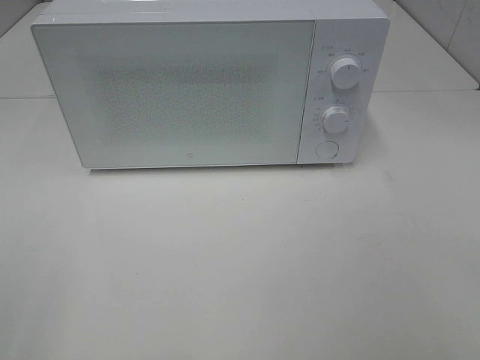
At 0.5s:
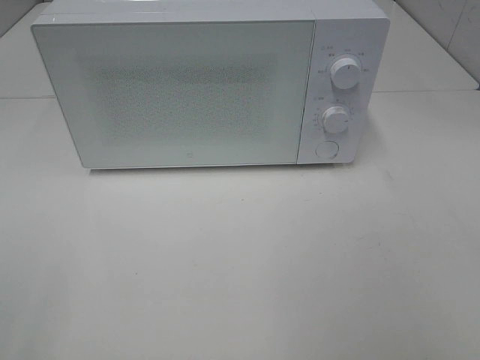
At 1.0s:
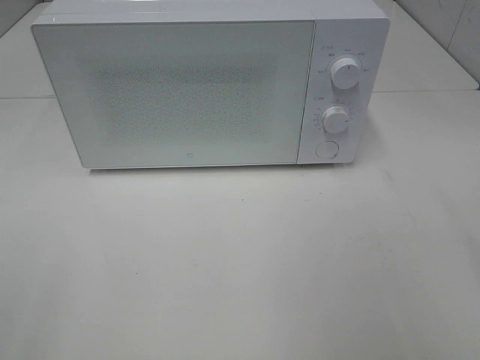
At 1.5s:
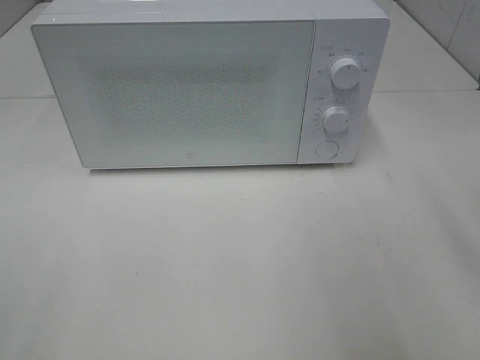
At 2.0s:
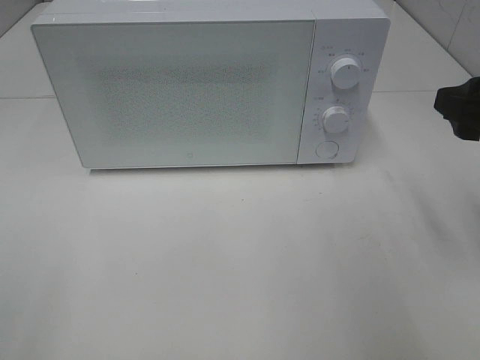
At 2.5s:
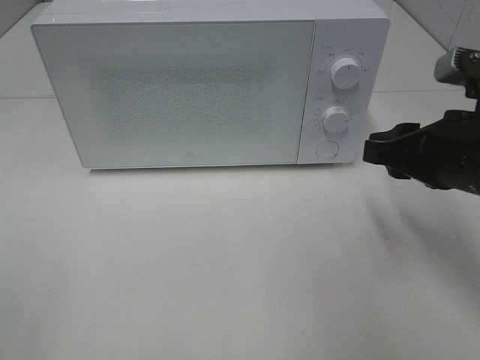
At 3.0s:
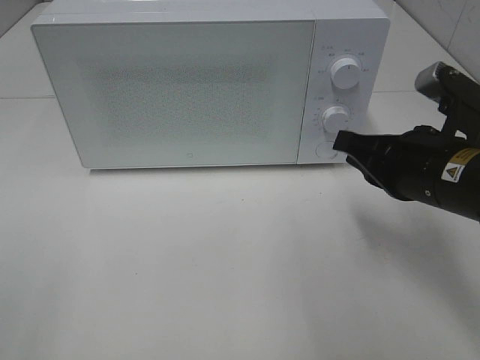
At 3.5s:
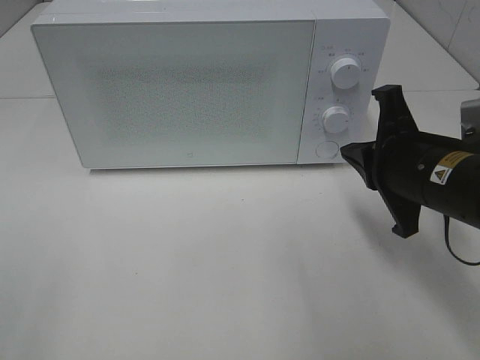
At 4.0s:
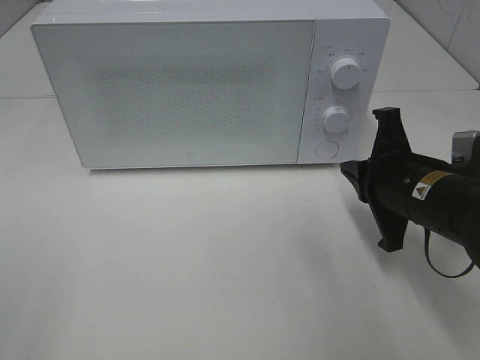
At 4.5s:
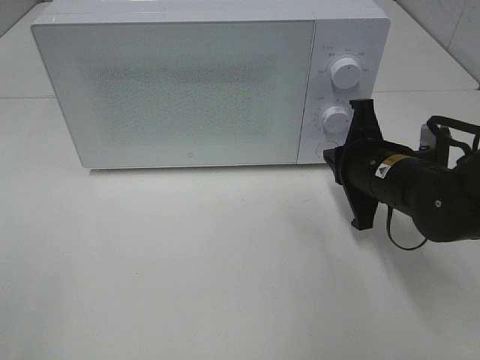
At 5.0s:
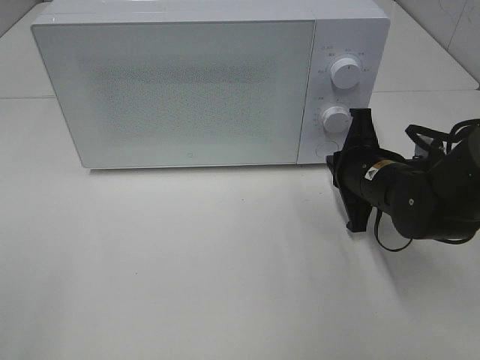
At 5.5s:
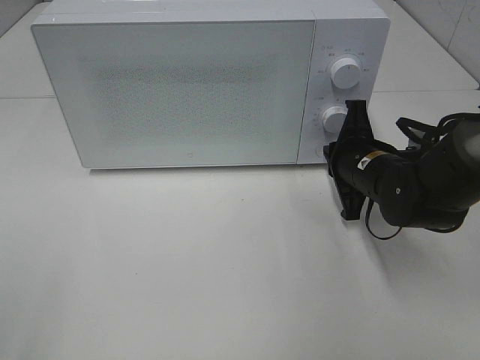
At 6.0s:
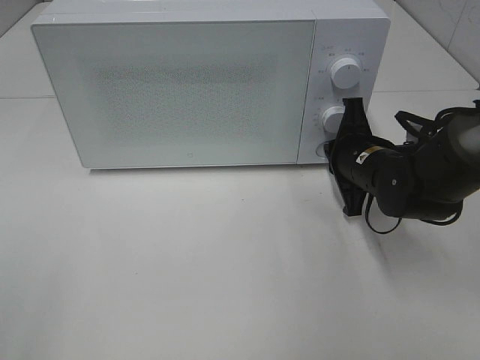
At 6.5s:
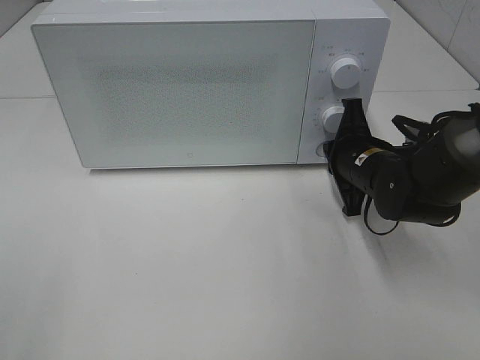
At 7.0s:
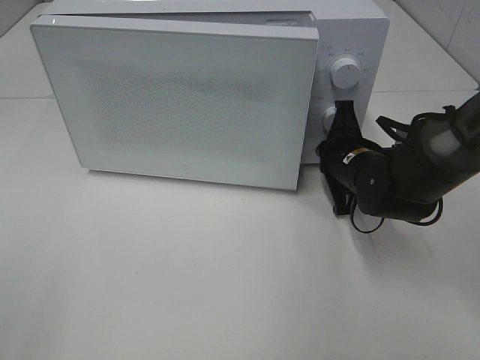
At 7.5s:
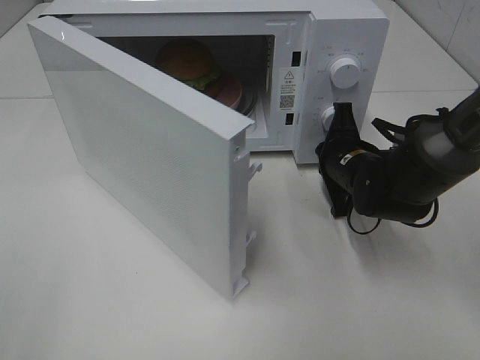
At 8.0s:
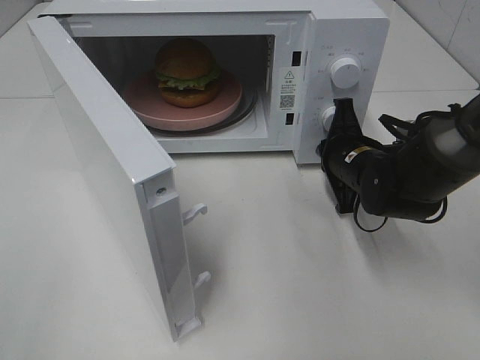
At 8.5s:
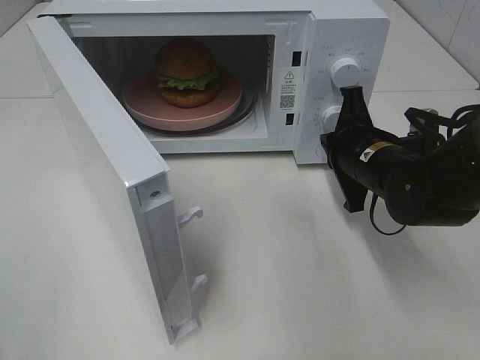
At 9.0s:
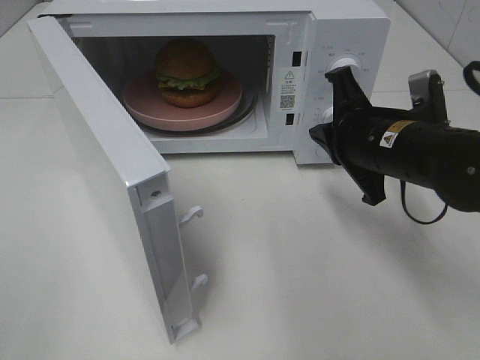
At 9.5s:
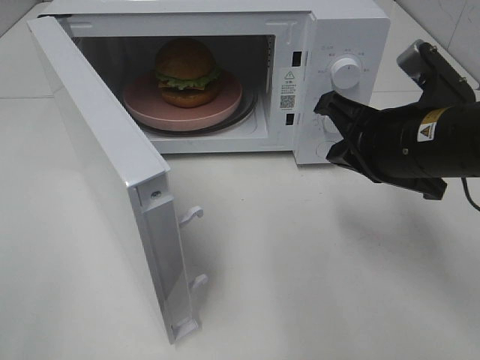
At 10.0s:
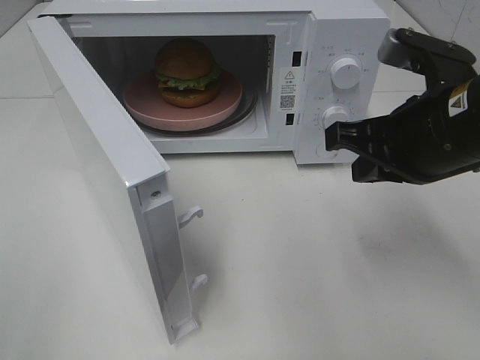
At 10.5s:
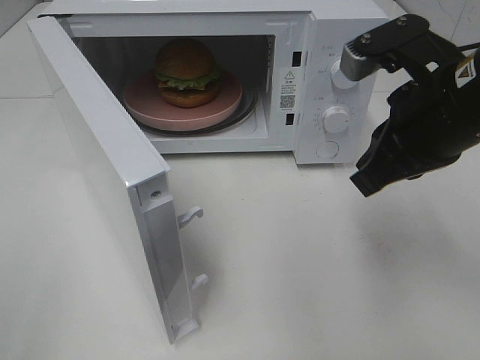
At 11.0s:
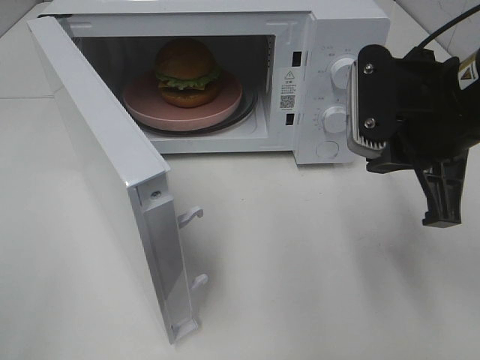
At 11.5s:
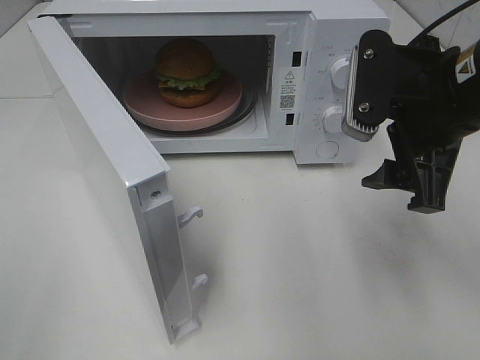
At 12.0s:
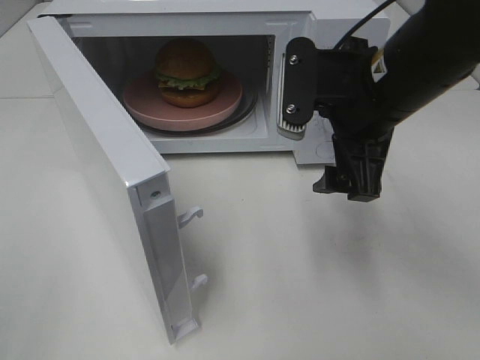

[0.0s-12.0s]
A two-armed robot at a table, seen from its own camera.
Task of the whole recording: Heat the burger.
Step, 0.0s to 8.0s: Right hand: press the switch.
0.0s to 2.0s: The right gripper travels forward by roughly 20 cm.
2.0s to 4.0s: The right gripper is displaced downward and to the left by some 15 cm, and closes up.
4.0s to 6.0s: The right gripper shifts some 10 cm forward.
8.0s to 10.0s: The right gripper moves upward and backward, roughly 20 cm.
10.0s to 12.0s: The right gripper moves to the left, some 5 cm, and opens its fingers.

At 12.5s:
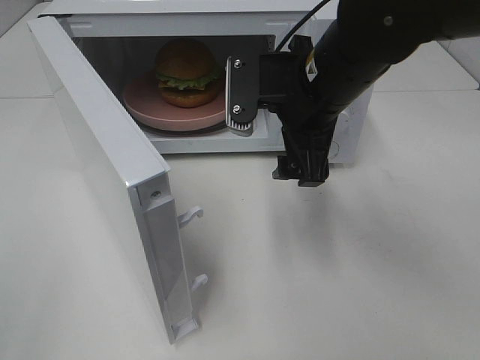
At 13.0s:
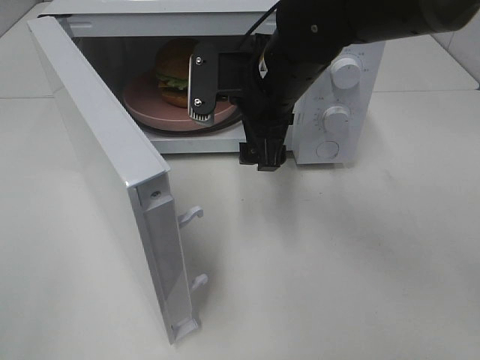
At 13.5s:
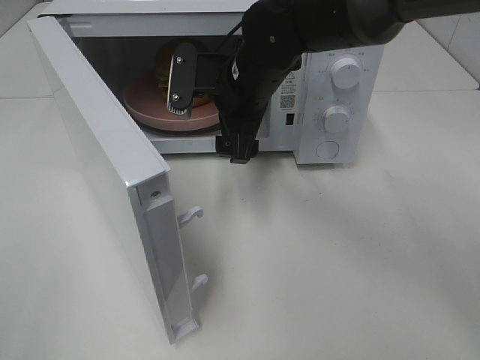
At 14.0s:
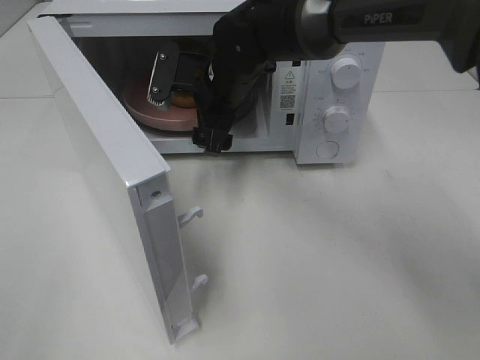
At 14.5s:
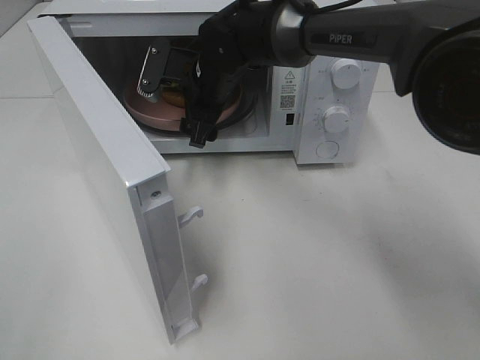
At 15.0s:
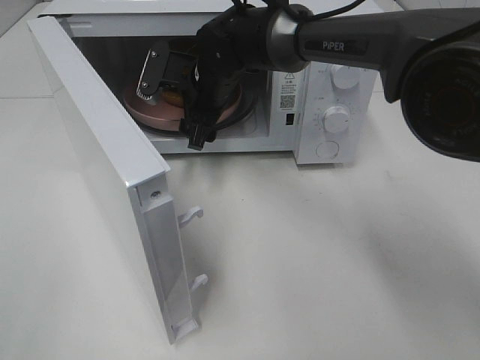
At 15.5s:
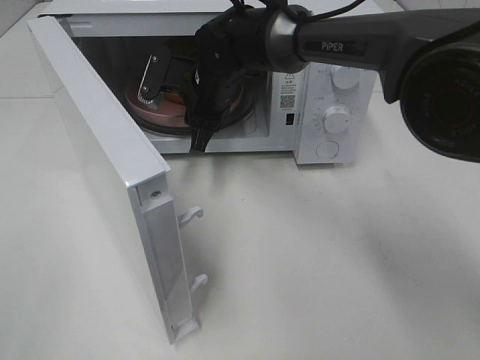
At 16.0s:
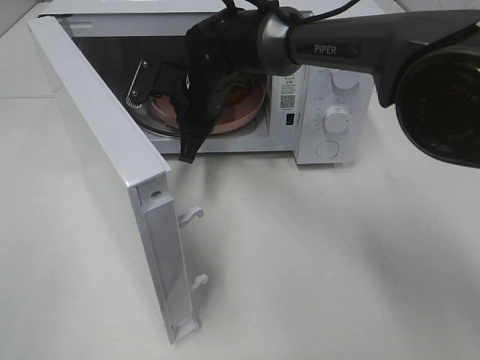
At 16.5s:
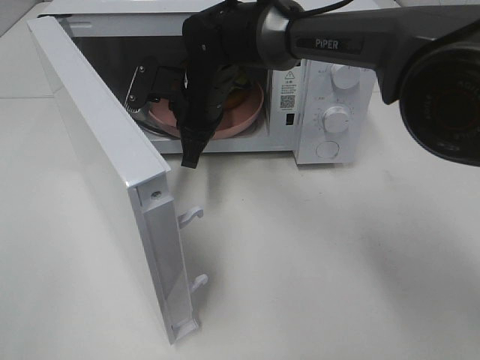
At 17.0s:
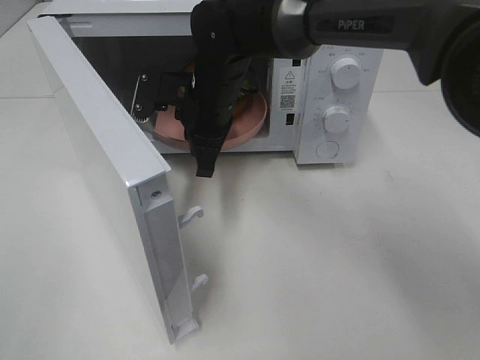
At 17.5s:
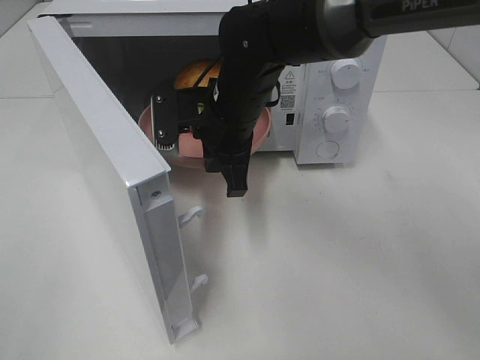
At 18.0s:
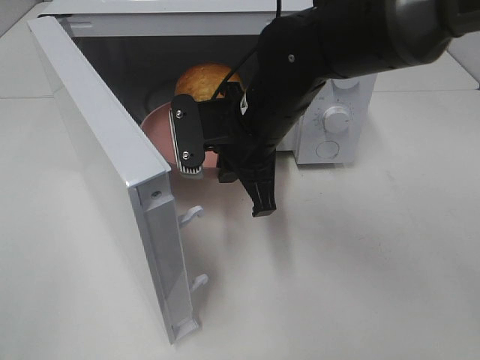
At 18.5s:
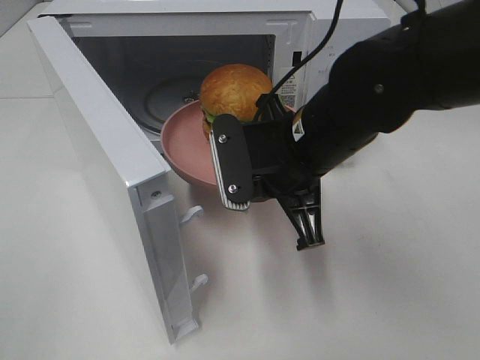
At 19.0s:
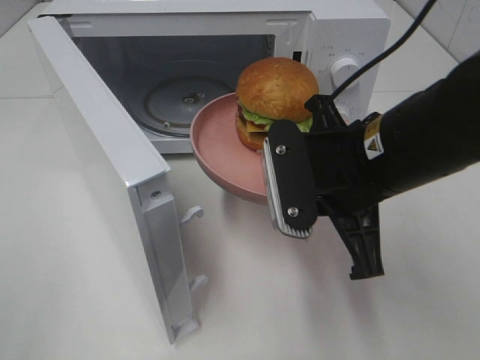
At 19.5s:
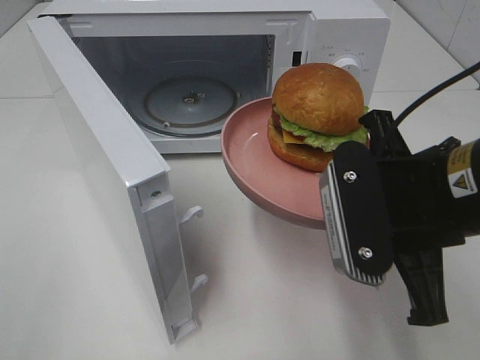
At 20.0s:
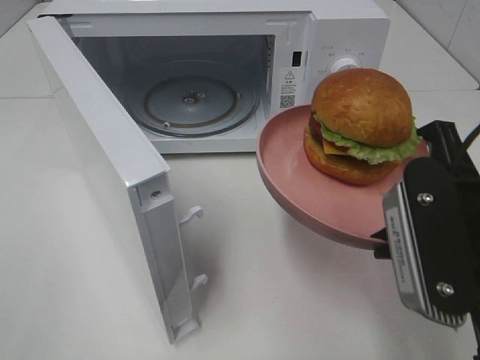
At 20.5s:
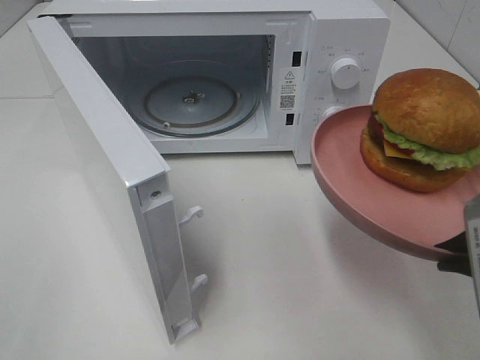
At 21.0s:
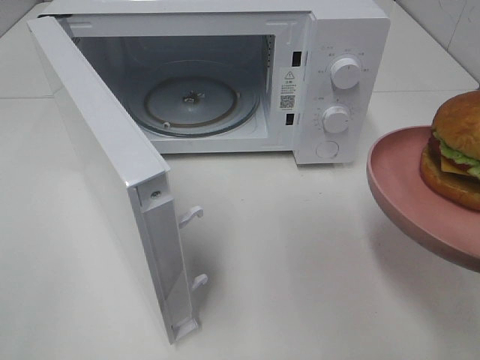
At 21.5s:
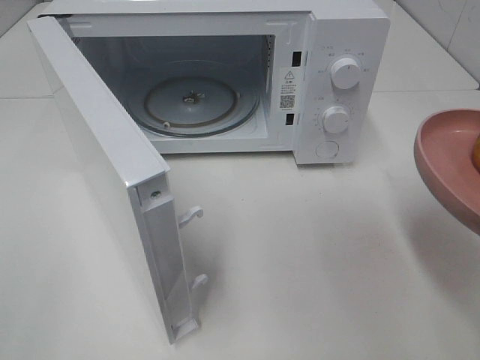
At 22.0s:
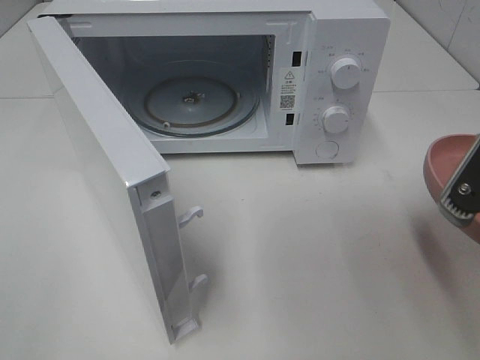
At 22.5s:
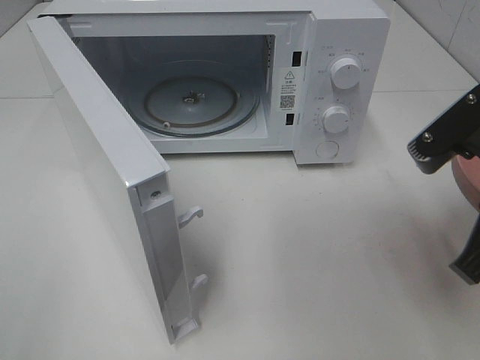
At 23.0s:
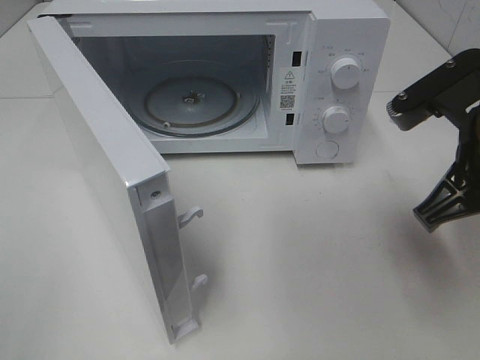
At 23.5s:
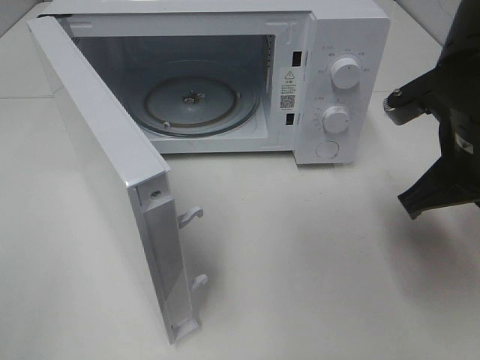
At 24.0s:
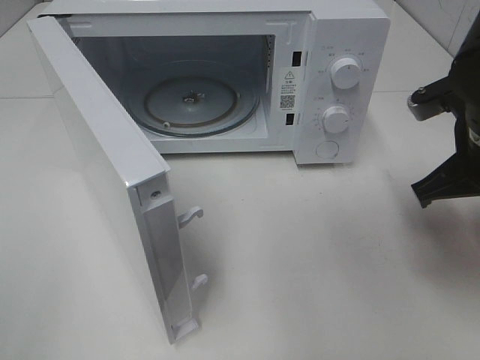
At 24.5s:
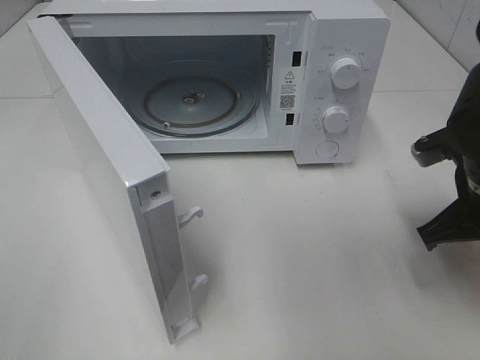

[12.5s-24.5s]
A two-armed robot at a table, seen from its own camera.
Task of the whole recording: Heat the burger.
Step, 12.5s to 15.5s: Right hand: grab the plate with the hamburger.
12.5s to 14.5s: The right gripper travels forward, to the left and downward by approximately 20 cm.
14.5s to 16.5s: The right gripper closes.
16.5s to 18.5s: The right gripper shifts some 20 cm backward and to the right.
18.5s to 20.5s: The right gripper shifts about 20 cm backward and to the right.
20.5s to 22.5s: The right gripper is displaced forward by about 5 cm.
22.5s to 24.5s: The right gripper is displaced downward and forward by approximately 10 cm.

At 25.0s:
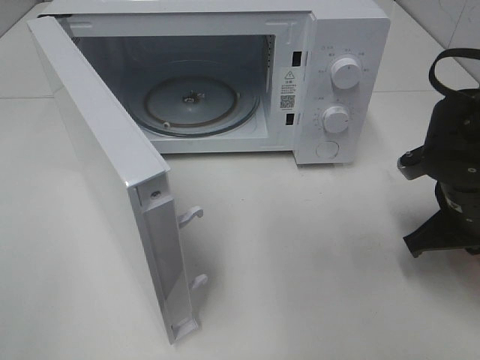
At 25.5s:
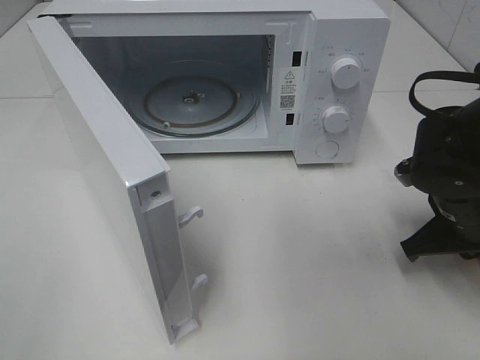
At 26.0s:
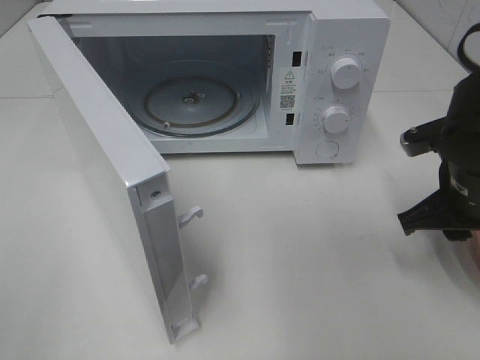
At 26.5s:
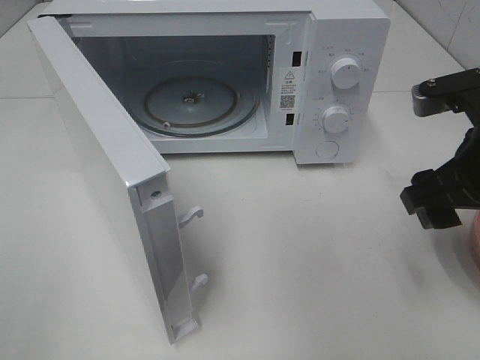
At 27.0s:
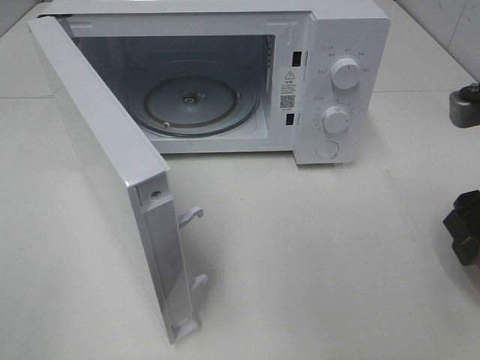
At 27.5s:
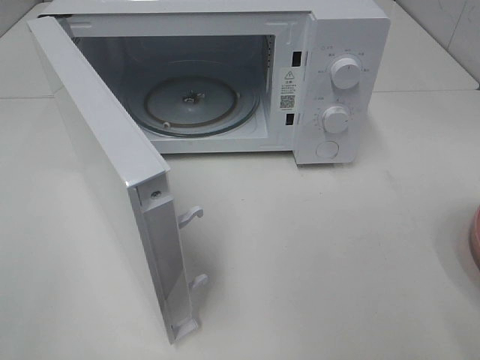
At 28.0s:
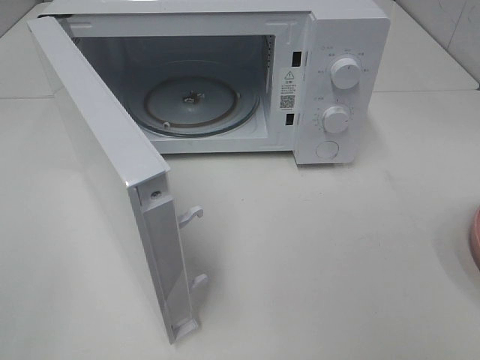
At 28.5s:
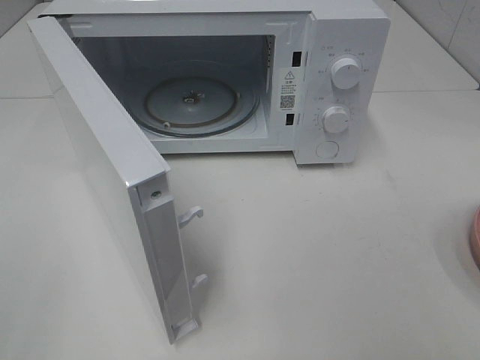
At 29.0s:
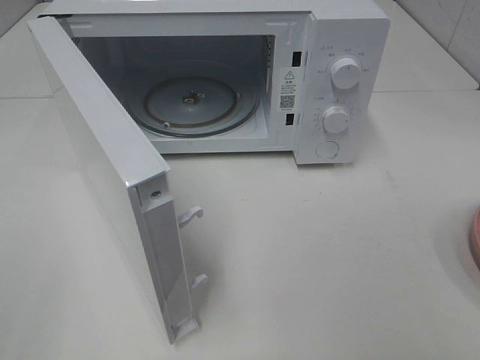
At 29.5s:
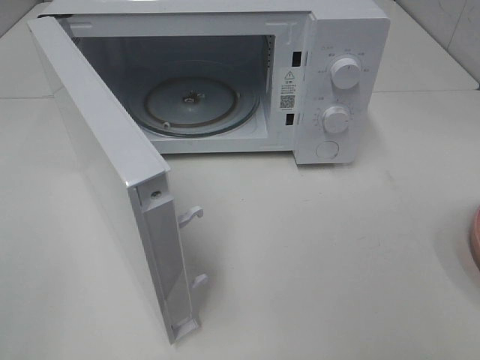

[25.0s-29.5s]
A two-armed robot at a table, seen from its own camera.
Task of the whole recording: Heat the burger.
25.0s to 27.0s: The right gripper moves upward and backward, about 15 cm, and opens.
27.0s to 29.5s: The right gripper moves backward, about 20 cm.
